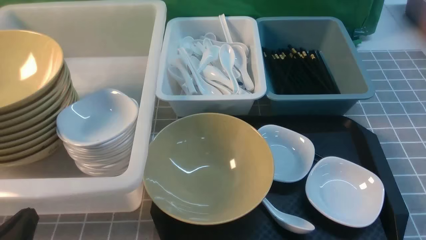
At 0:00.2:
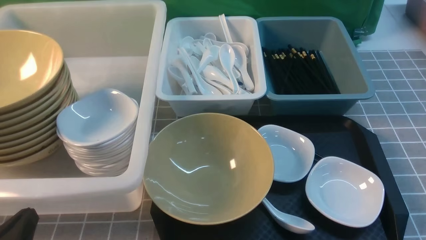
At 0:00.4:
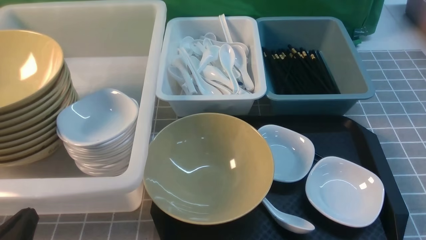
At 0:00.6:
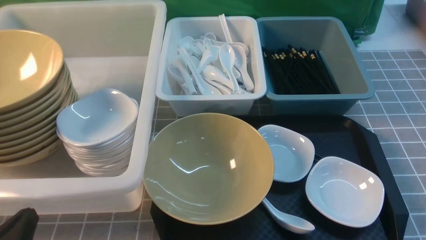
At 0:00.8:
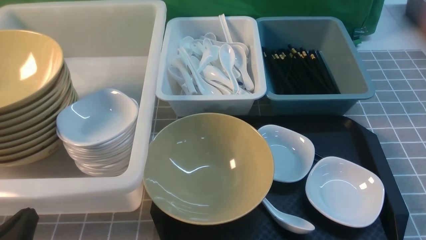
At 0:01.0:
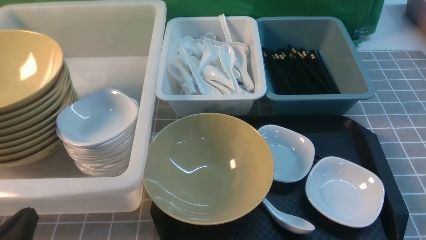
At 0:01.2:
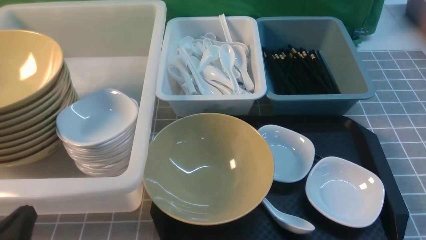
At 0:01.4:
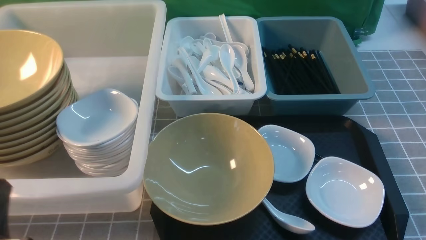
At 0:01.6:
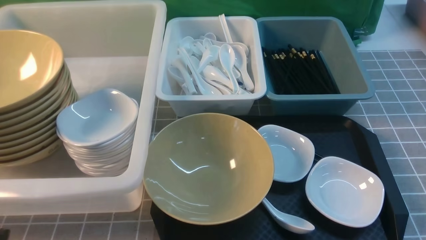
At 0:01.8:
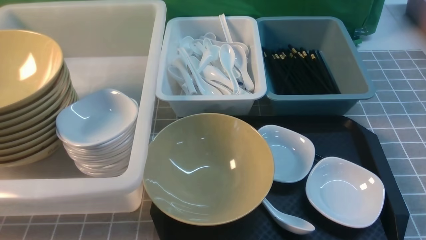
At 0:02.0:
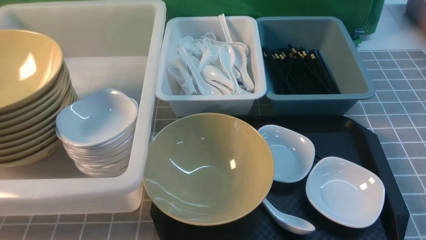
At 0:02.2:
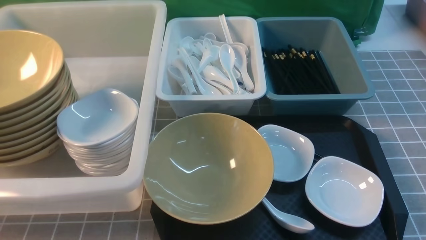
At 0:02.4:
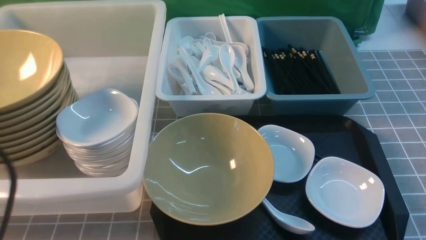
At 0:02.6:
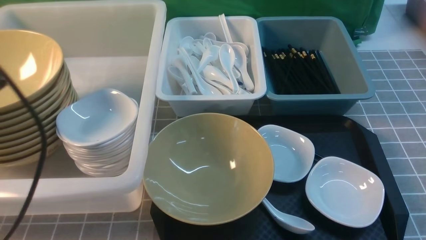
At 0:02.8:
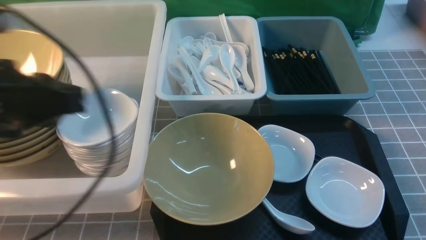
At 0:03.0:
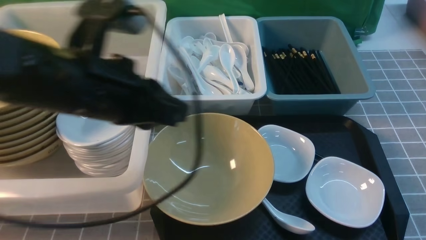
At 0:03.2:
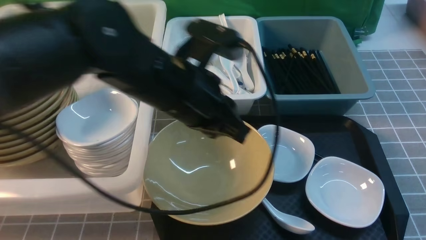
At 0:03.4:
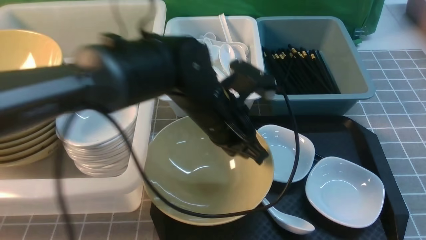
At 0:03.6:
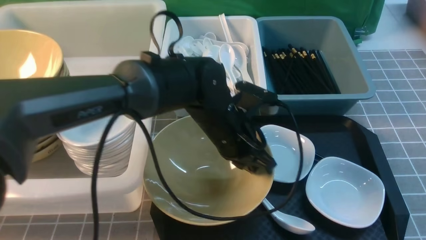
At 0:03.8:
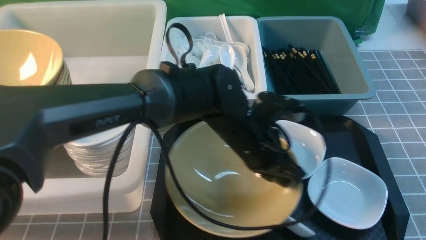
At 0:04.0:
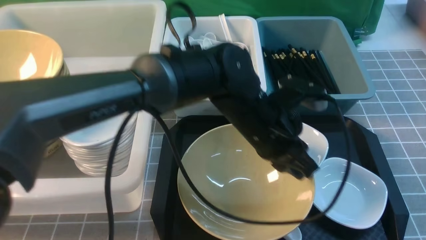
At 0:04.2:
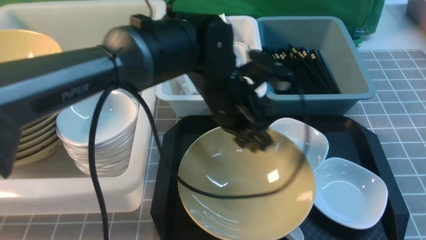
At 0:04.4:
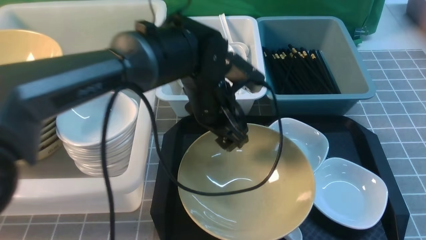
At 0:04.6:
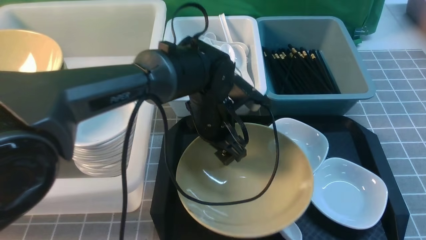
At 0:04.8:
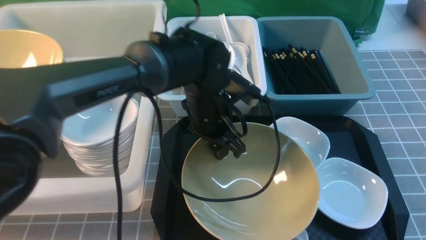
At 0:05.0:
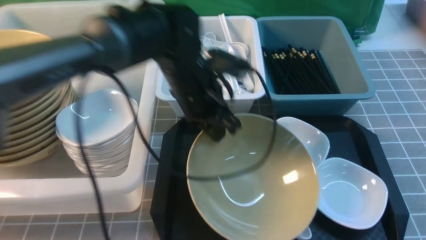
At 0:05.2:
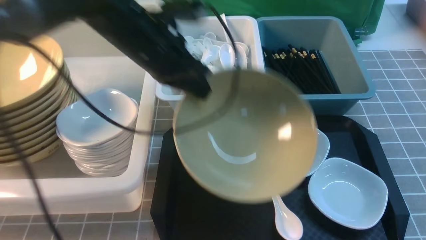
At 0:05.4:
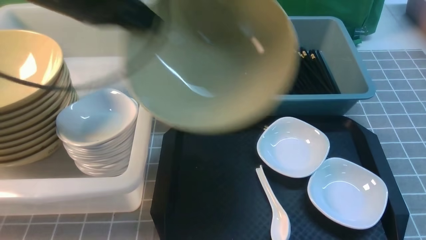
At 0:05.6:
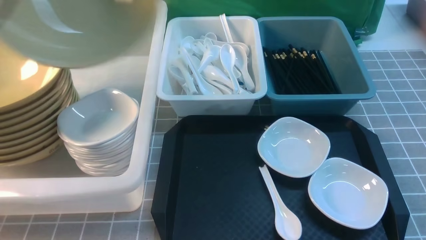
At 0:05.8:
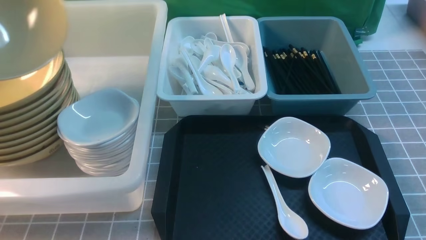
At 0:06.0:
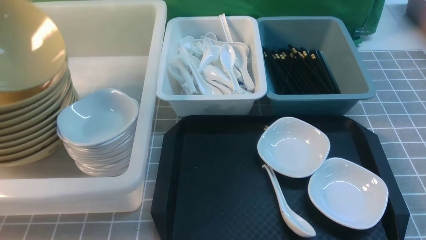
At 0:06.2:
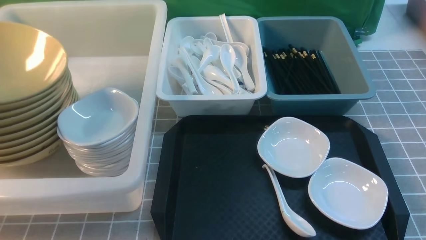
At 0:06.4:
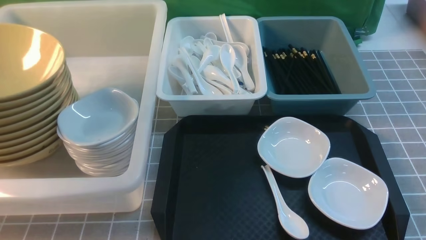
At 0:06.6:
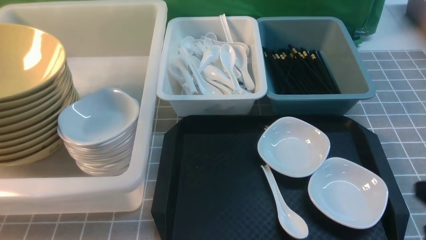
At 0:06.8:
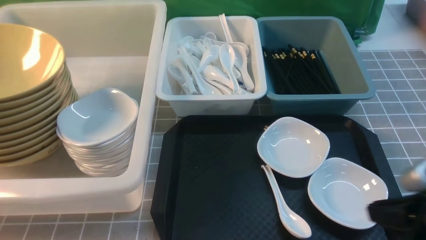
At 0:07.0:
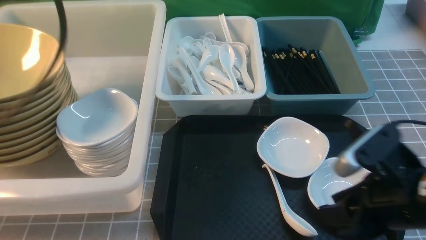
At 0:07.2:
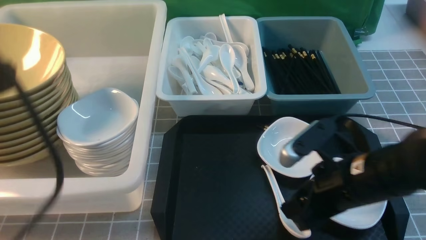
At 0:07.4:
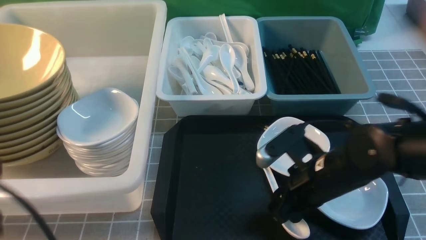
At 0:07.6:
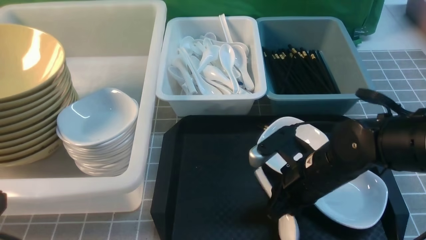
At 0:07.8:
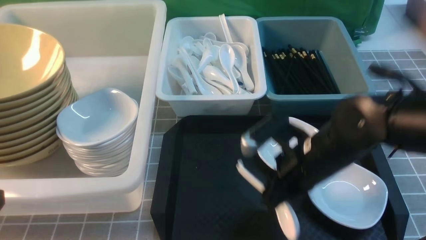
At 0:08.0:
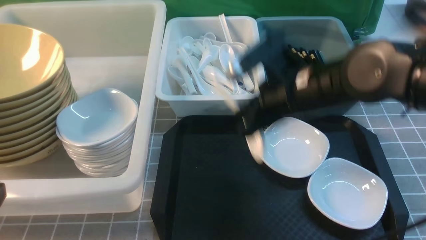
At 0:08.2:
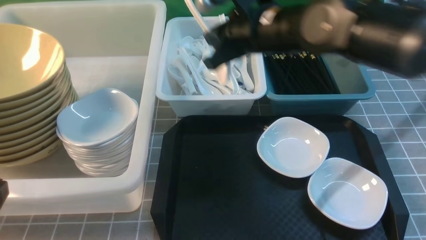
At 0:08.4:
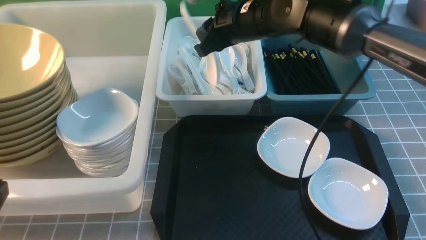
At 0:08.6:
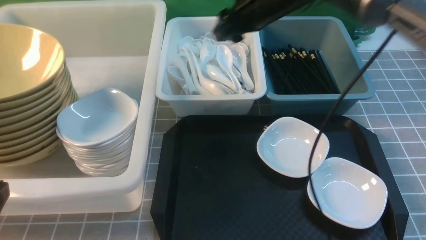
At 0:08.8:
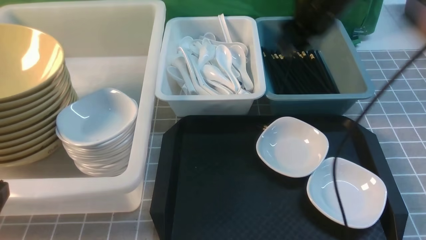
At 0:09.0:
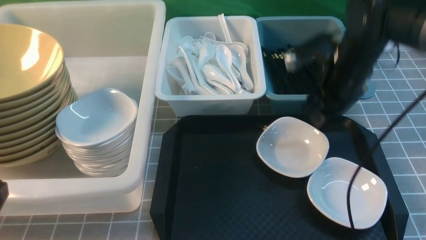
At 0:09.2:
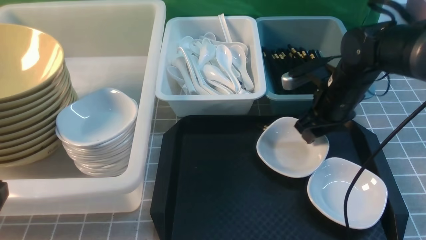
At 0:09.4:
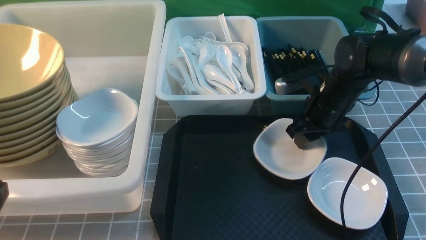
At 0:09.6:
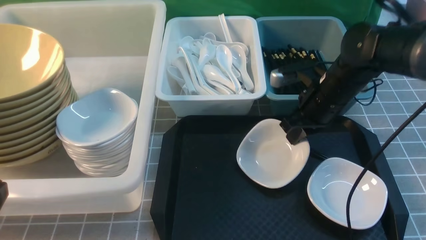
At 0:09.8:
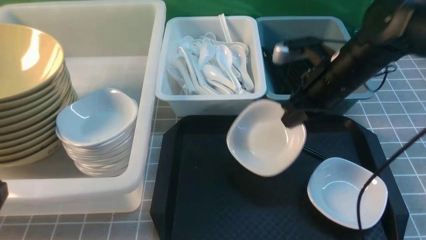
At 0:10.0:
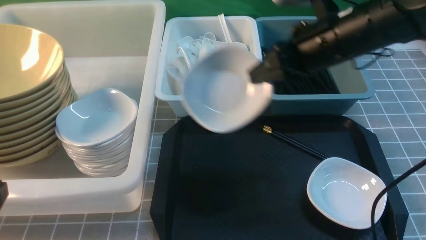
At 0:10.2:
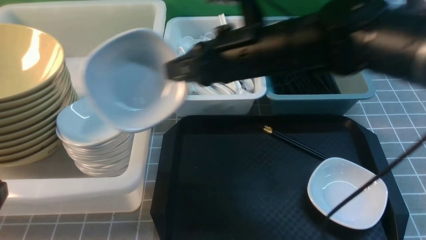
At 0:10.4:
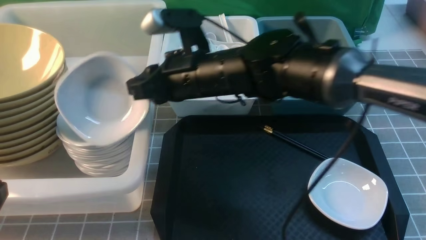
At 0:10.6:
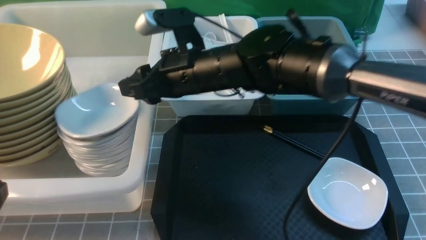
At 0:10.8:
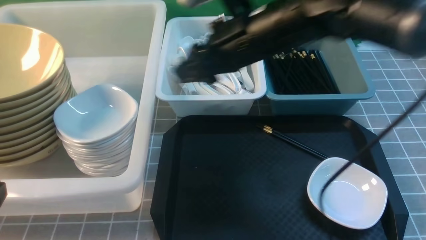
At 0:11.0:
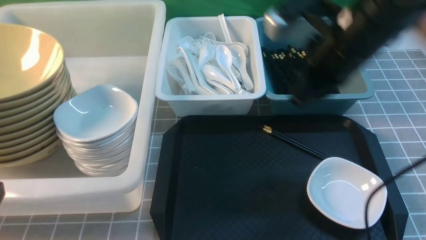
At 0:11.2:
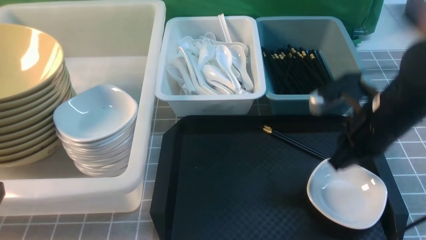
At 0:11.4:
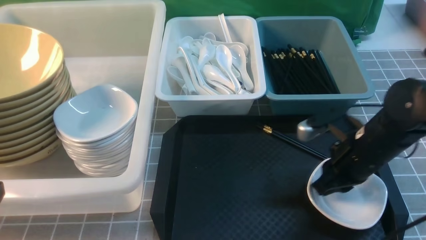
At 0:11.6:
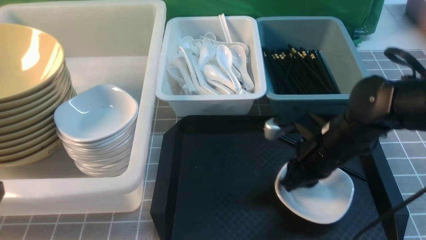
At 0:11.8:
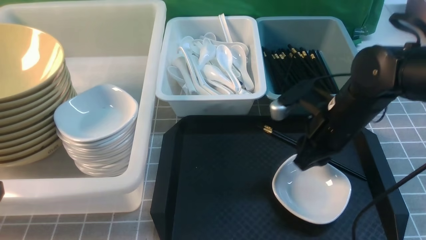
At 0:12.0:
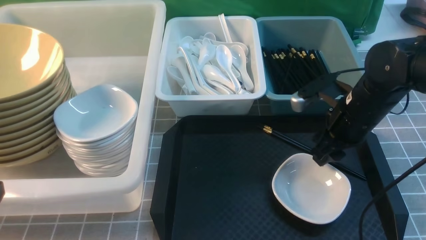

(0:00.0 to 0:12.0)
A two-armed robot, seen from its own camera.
Task of the whole recording: on grey table put chopsticks spoon bowls plates into blue grey white boxes.
Step, 0:00.0 - 0:05.0: use the left arm to grab the yellow noodle bowl on the left.
Step, 0:05.2 - 0:06.2: use the left arm to put the noodle bowl into the large storage box on the left.
Step, 0:06.4 - 0:07.8: use the right arm to grab the soup spoon in the middle.
Step, 0:08.0 - 0:08.6: use the right arm to put the soup spoon into the small storage box in the middle.
Step, 0:08.8 - 0:09.6: use the right arm to grab the plate.
Step, 0:10.0 - 0:10.6: use the right arm to put the plate into the large storage box on the left.
0:01.6 - 0:03.0: The right gripper is displaced upward by some 5 cm; the left gripper goes approximately 25 cm forward, upward and to the right.
0:03.0 - 0:04.4: The left gripper goes some 25 cm to the right, downward and forward, and opens up.
0:04.4 - 0:06.0: The left gripper goes approximately 50 cm to the left and upward, and closes.
0:06.0 - 0:07.6: The right gripper shifts some 25 cm to the left, forward and downward, and opens its fingers; the left gripper shifts roughly 30 cm backward, to the right and downward, and opens and closes again.
0:07.6 - 0:09.0: The right gripper moves forward and upward, about 20 cm, and closes, then opens again.
0:09.0 - 0:10.4: The right gripper shifts approximately 20 cm to the left and backward, and closes.
0:10.4 - 0:12.0: The right gripper travels to the right and downward by some 20 cm, and opens.

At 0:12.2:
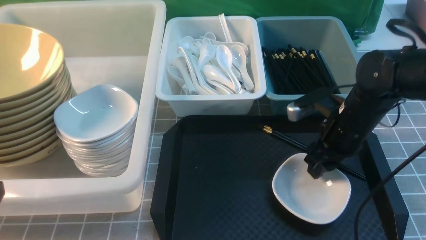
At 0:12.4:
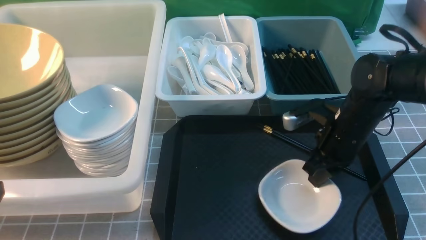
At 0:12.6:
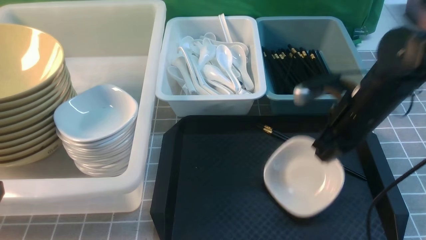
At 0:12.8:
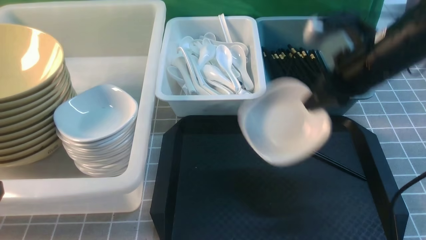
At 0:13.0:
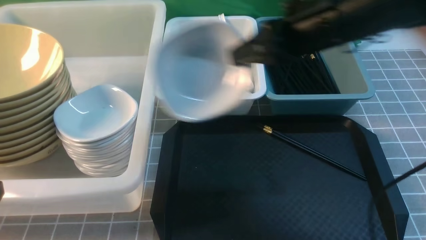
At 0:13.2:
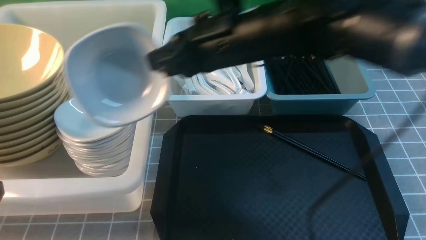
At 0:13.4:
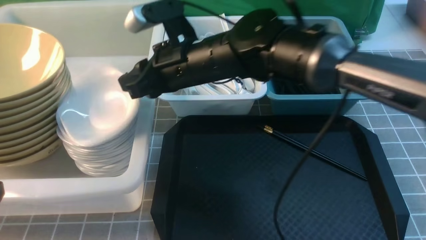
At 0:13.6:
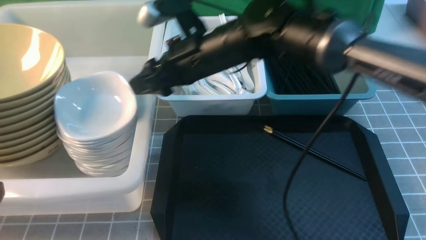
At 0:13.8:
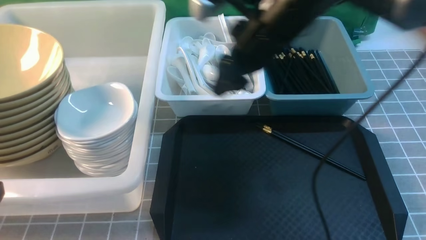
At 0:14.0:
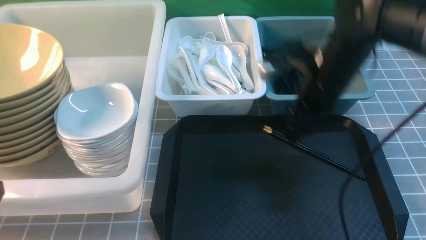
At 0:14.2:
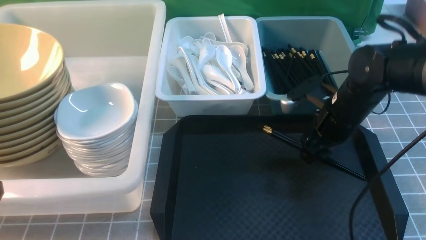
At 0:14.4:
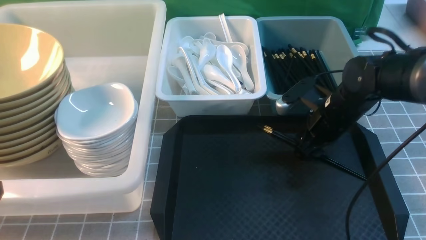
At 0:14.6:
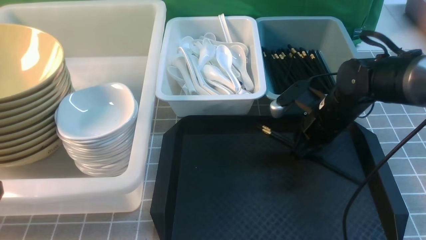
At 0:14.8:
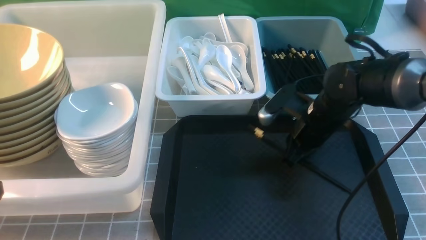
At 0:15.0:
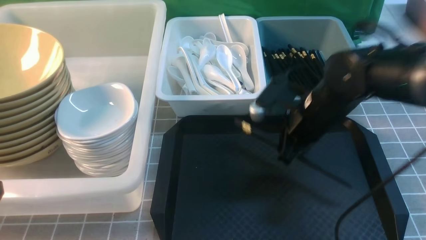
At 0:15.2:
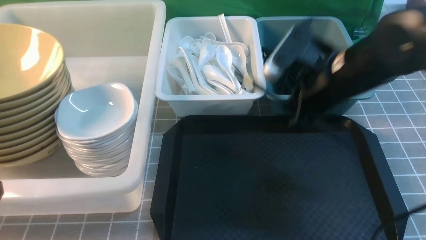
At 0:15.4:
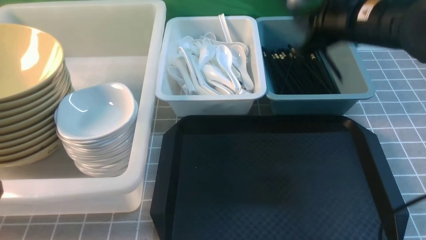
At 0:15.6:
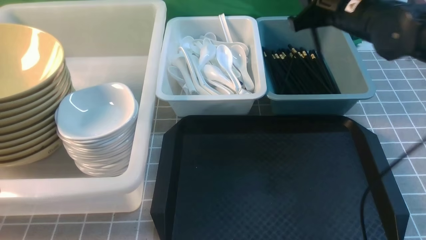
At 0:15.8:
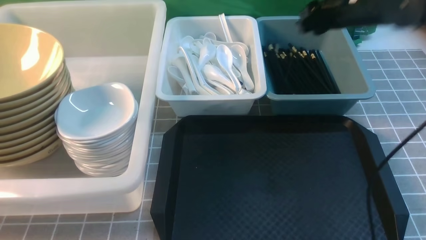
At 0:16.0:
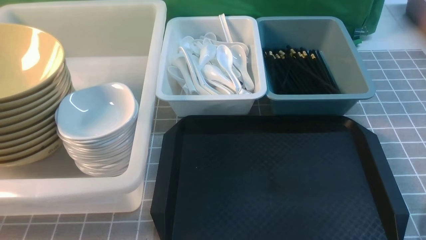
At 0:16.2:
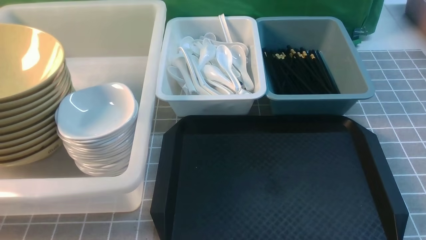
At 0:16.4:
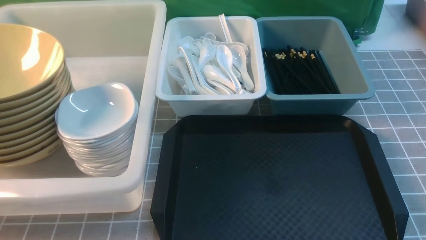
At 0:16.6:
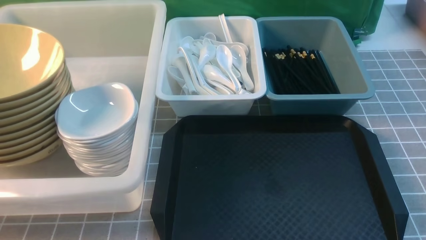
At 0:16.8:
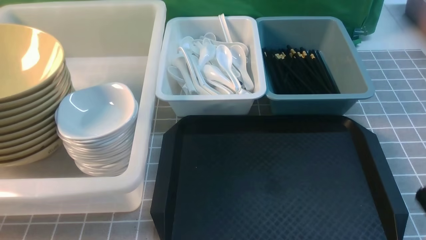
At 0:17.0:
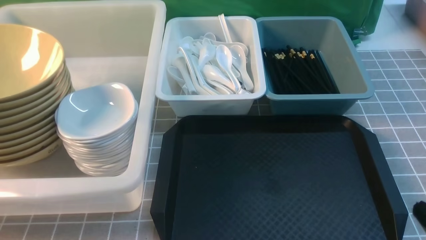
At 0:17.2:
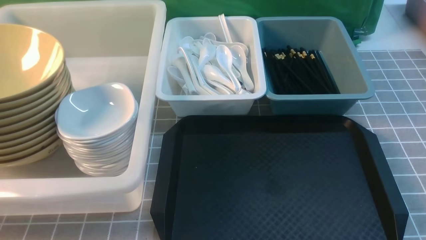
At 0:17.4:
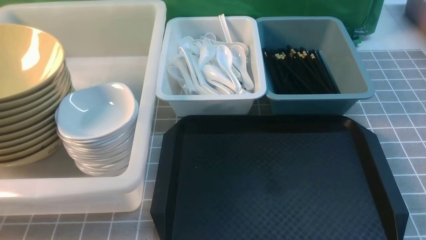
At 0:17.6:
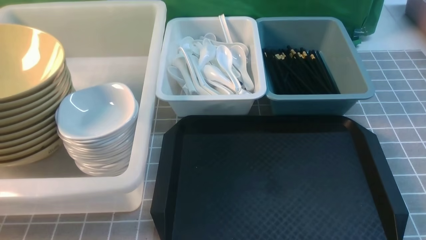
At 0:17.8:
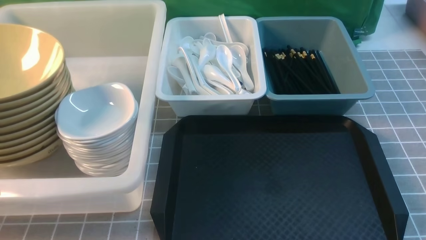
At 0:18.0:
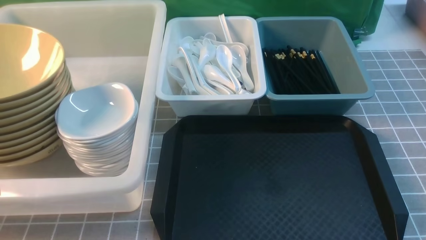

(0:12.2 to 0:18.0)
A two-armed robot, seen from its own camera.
Task of the whole recording: on grey table put chopsticks spoon bowls plates into blue grey white boxes.
Step, 0:12.8 - 0:13.6: use the right arm to put the plate into the large storage box on the left.
Step, 0:13.8 - 0:15.0: use the right arm to grab the chopsticks.
Step, 0:15.2 - 0:16.2: use the right arm to put the chopsticks into the small storage box on the right.
0:12.2 - 0:13.6: The right gripper goes approximately 25 cm to the left and upward, and closes, then reopens.
0:13.6 - 0:15.0: The right gripper moves to the right and downward, about 20 cm, and closes up.
0:15.0 - 0:16.6: The right gripper is displaced backward and to the right by some 25 cm.
